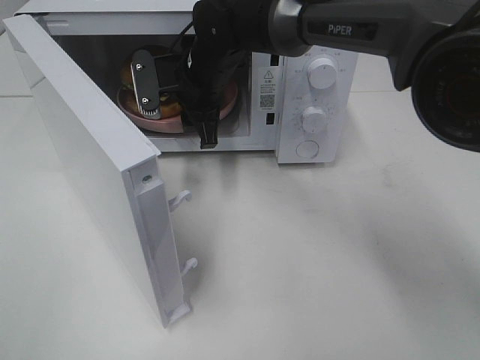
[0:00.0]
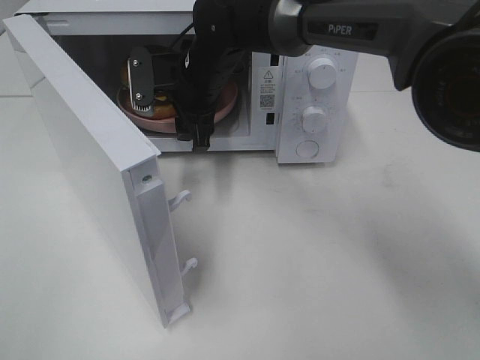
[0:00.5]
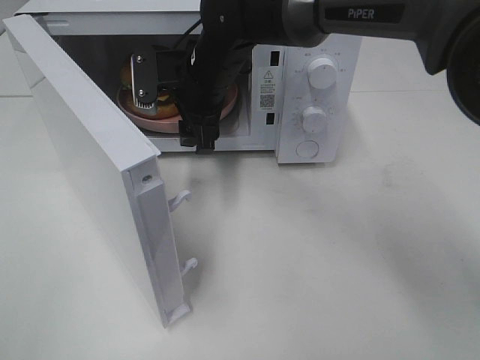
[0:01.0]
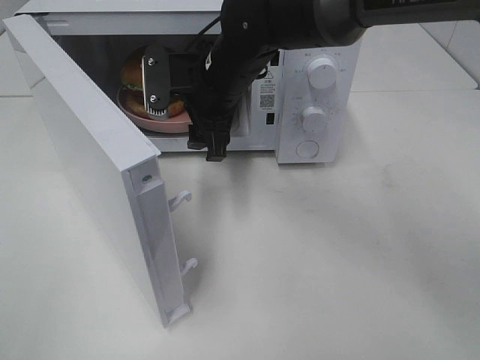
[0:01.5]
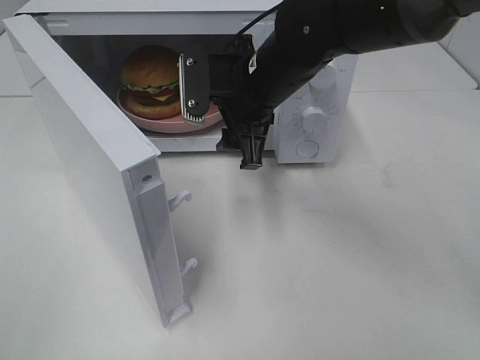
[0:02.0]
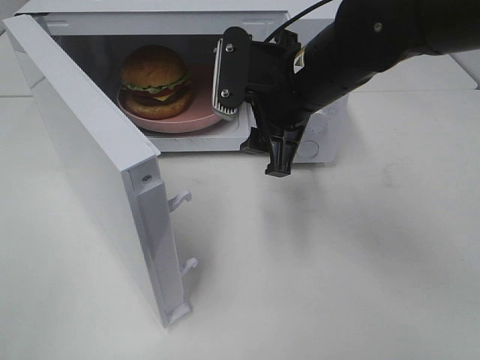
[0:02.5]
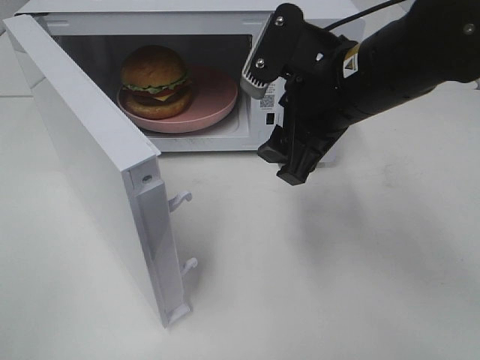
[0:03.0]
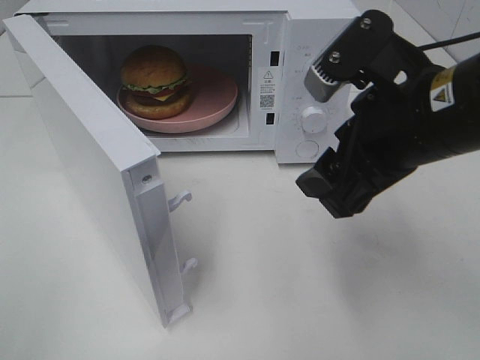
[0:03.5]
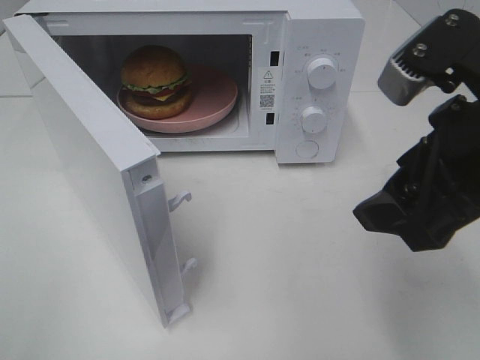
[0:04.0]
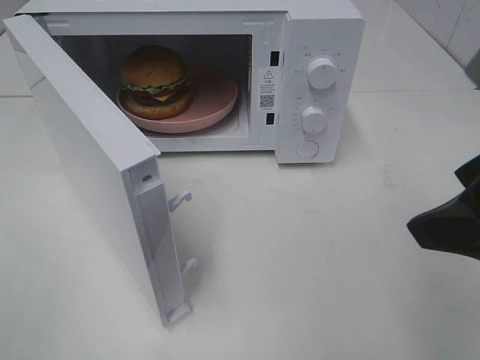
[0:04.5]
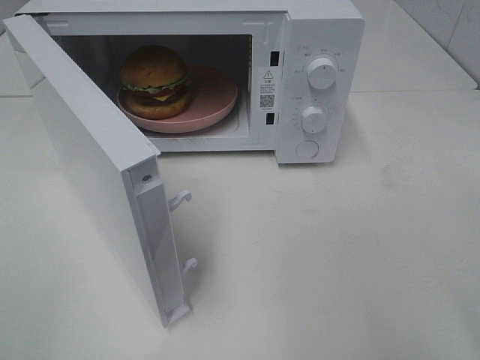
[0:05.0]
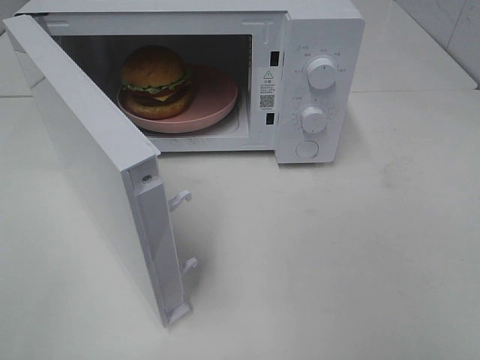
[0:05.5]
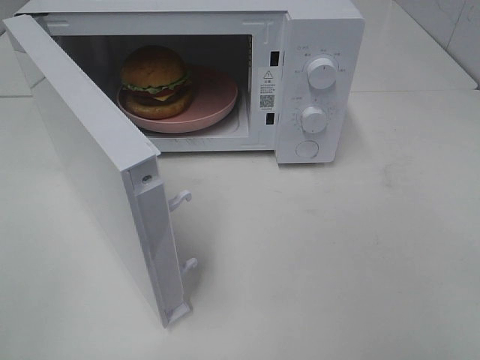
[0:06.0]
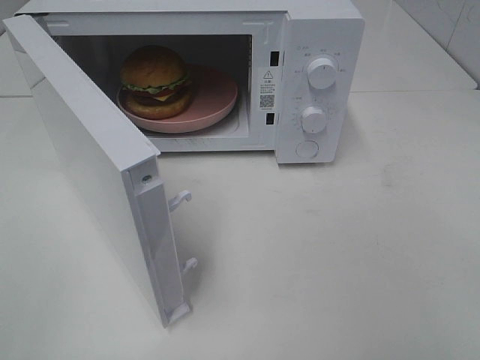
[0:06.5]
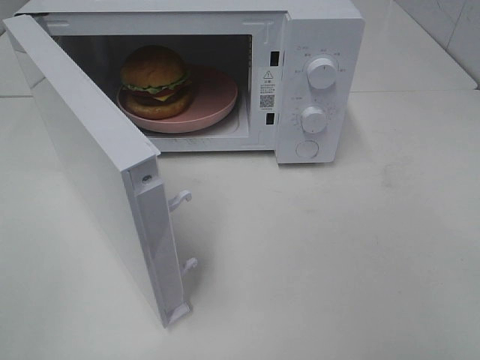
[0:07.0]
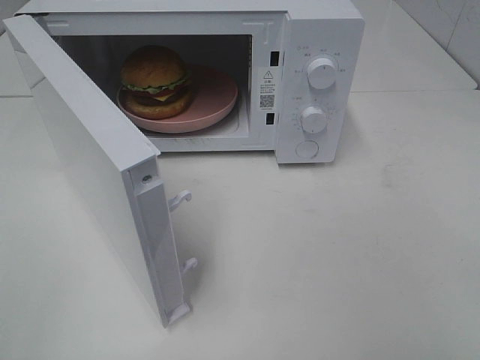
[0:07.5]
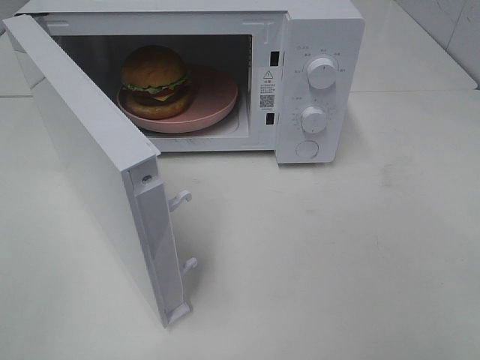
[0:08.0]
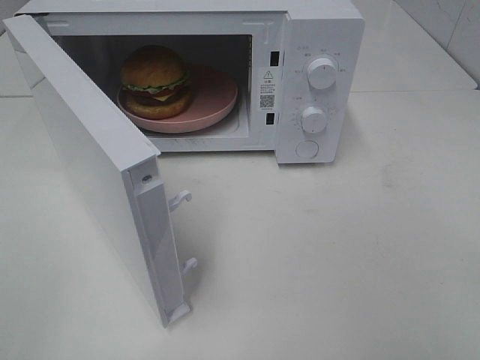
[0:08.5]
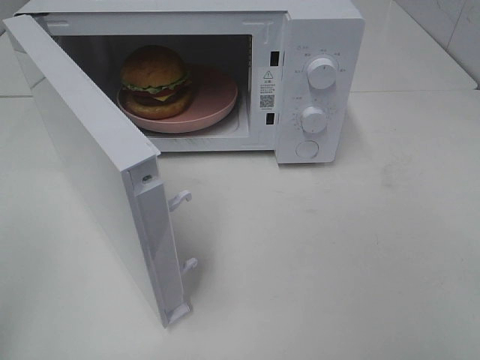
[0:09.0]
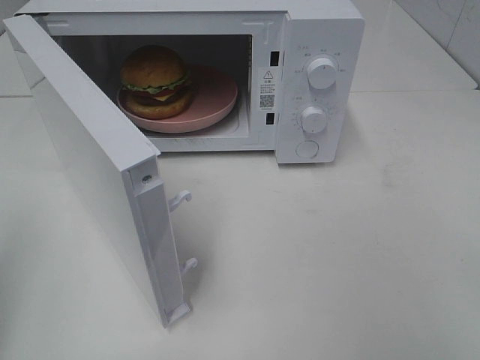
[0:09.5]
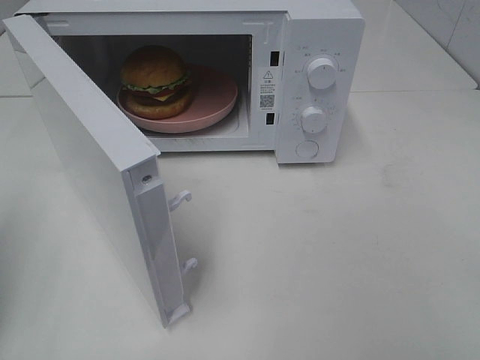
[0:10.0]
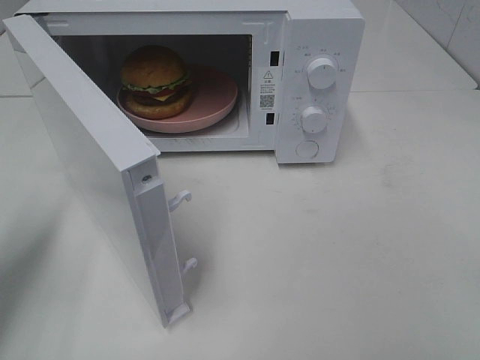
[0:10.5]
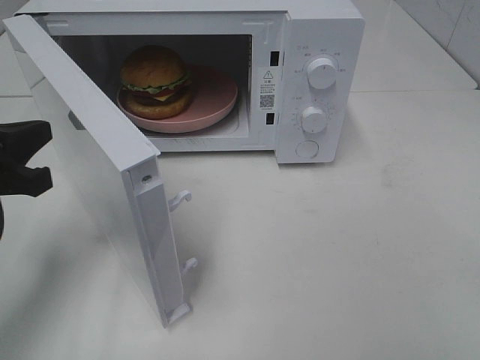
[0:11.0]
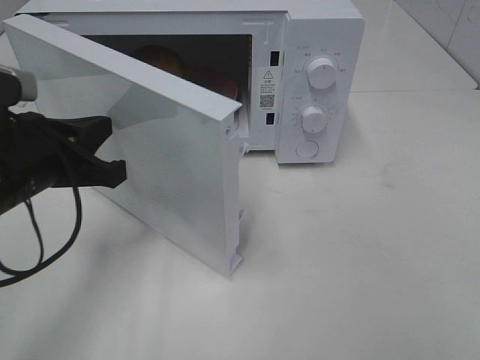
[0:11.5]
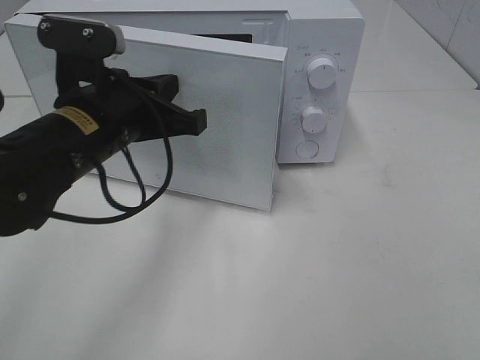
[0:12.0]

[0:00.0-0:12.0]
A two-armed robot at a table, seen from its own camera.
Task of the whole recording: Heat the burger.
0:00.0 to 0:02.0: The right gripper moves backward and to the right, approximately 10 cm.
0:02.0 to 0:04.0: The right gripper shifts some 25 cm backward and to the right.
0:04.0 to 0:06.0: The right gripper is displaced backward and to the right by approximately 20 cm.
0:06.0 to 0:08.0: The two grippers keep their place.
0:10.0 to 0:12.0: The left gripper shifts about 25 cm to the right and forward.

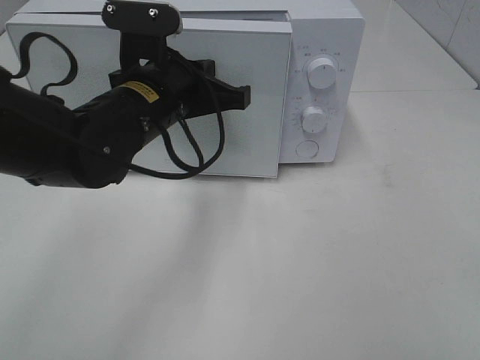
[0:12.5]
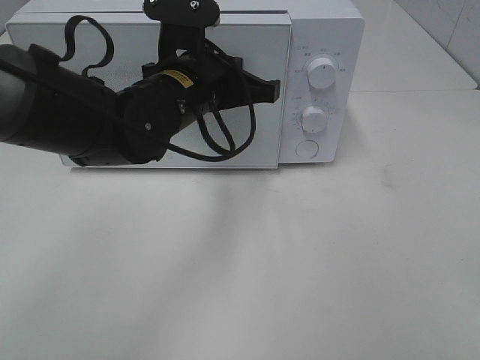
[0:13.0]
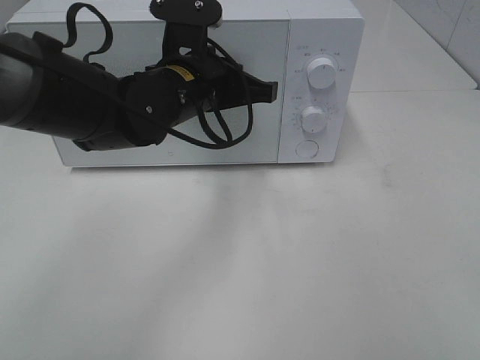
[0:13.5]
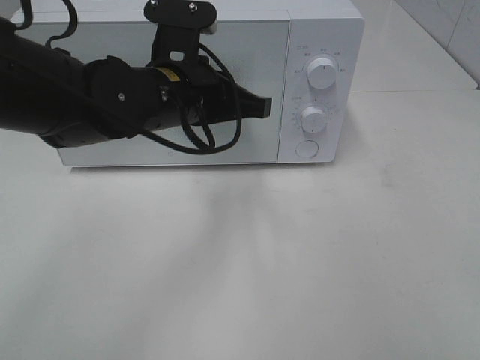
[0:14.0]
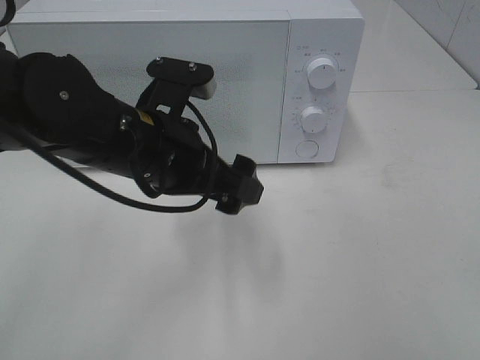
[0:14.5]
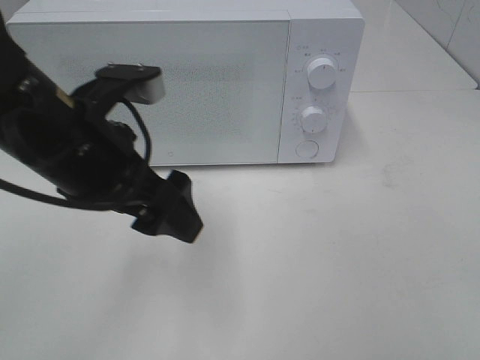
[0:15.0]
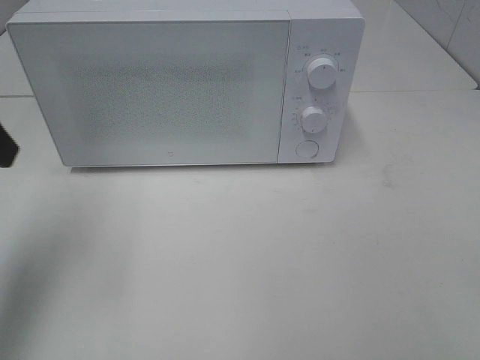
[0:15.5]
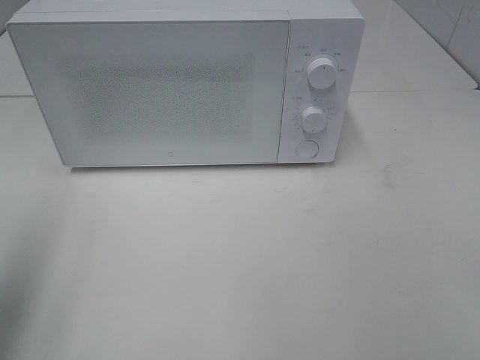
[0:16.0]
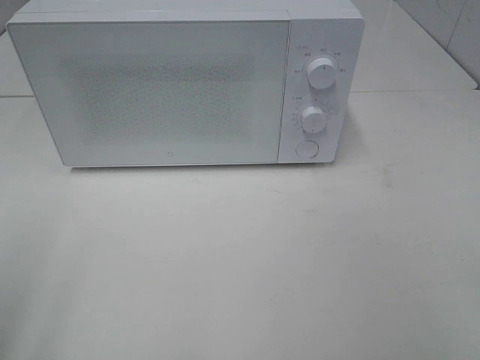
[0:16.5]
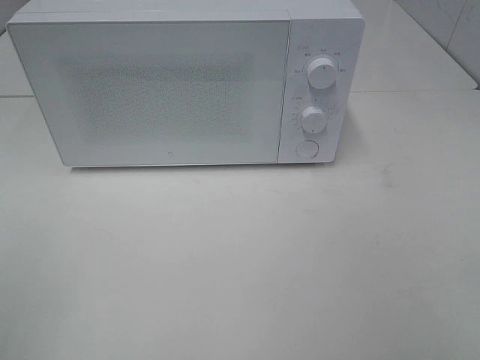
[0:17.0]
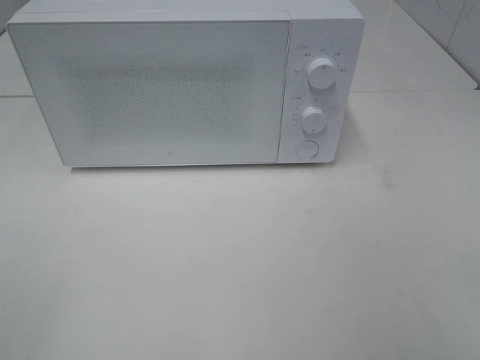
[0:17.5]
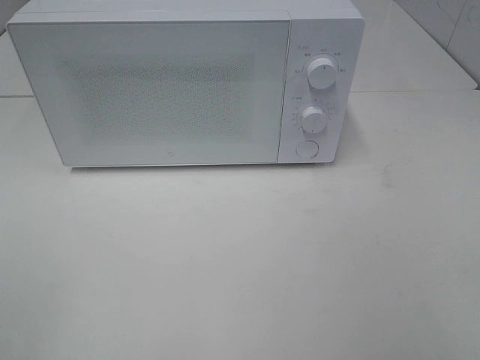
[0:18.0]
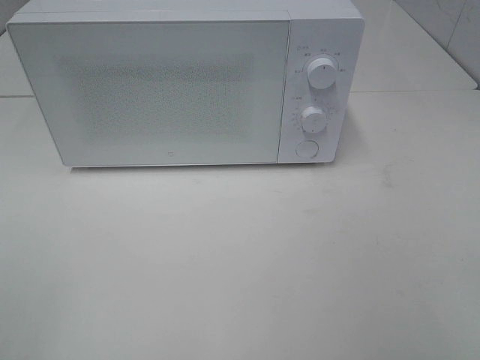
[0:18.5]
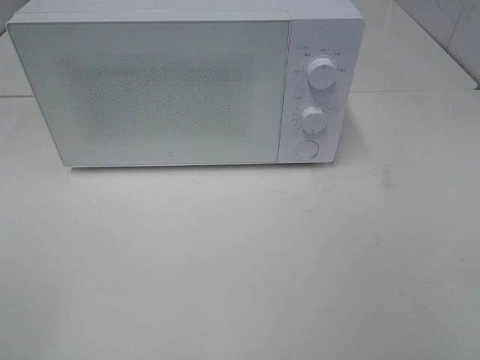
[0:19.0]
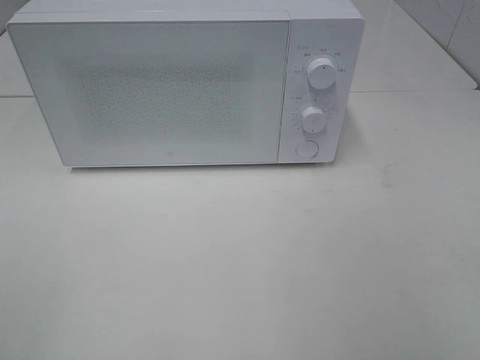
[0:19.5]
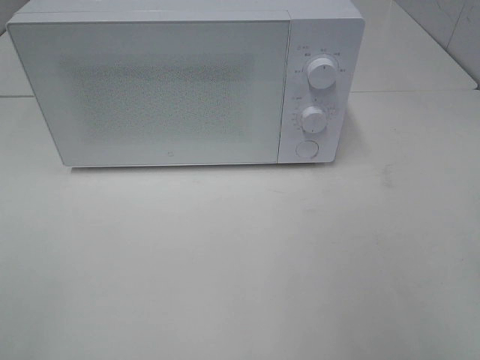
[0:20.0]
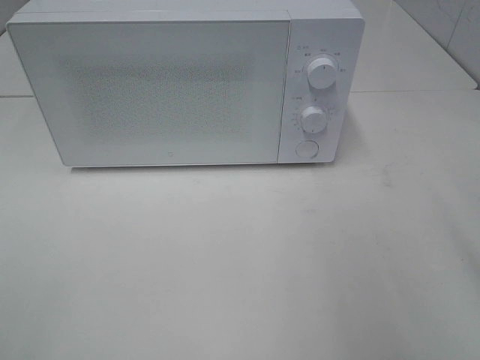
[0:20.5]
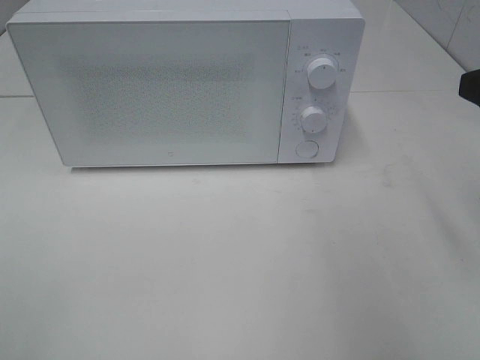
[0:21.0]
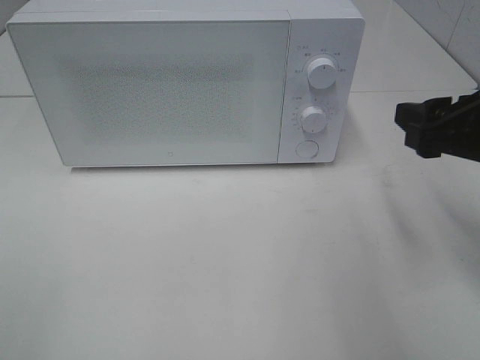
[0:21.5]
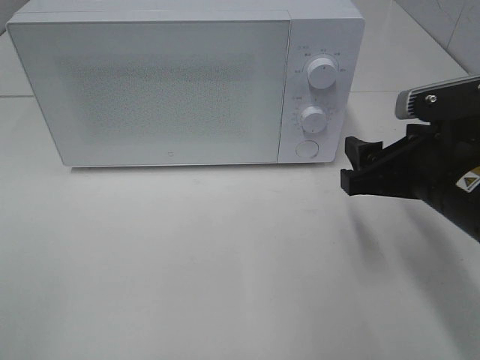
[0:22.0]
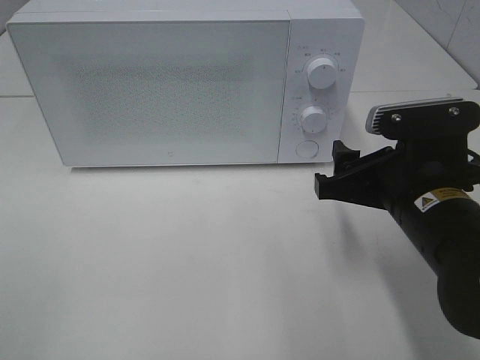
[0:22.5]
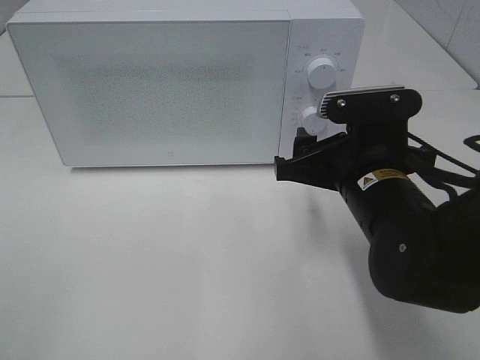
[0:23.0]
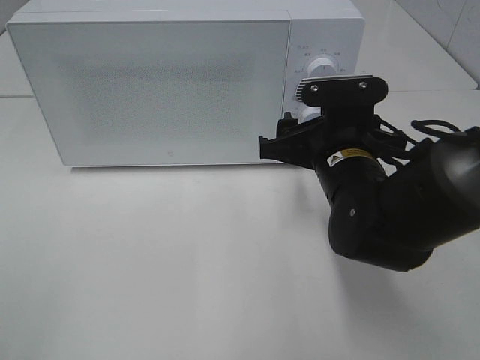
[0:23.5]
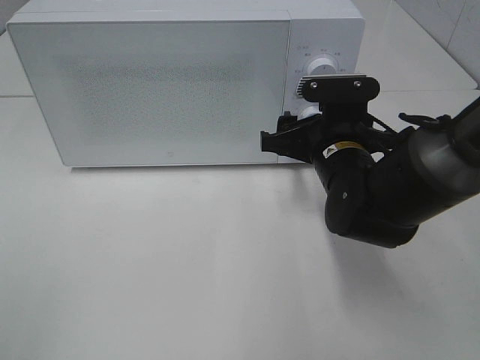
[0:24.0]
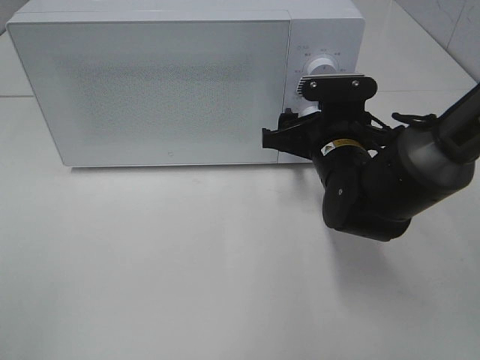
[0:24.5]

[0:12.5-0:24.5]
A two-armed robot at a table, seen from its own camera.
Task of the whole recording: Heat the burger.
0:12.5 to 0:14.5: The left gripper shifts some 5 cm backward, and opens.
0:14.5 to 0:16.5: The left gripper heads to the left and backward, covering approximately 30 cm.
0:20.5 to 0:22.5: The right gripper goes about 20 cm downward, to the left and forward.
0:22.5 to 0:24.5: The right gripper heads forward, covering some 10 cm.

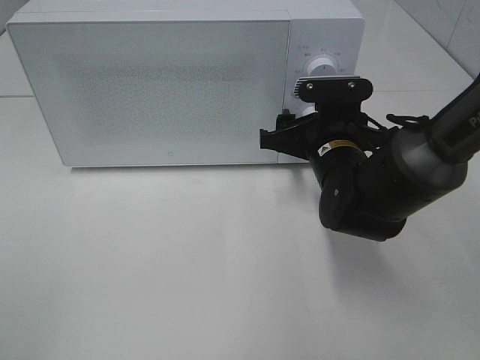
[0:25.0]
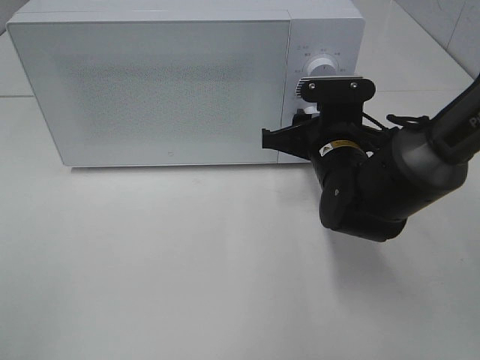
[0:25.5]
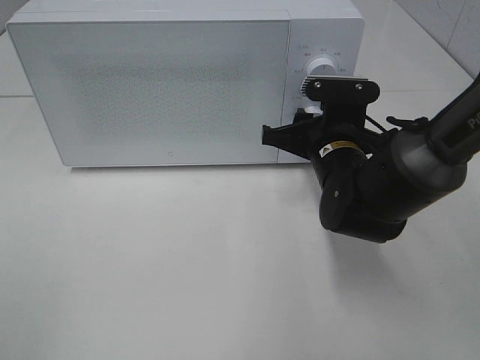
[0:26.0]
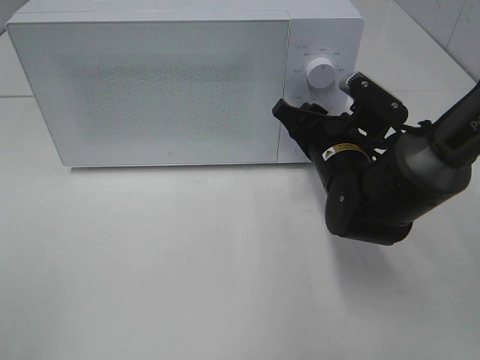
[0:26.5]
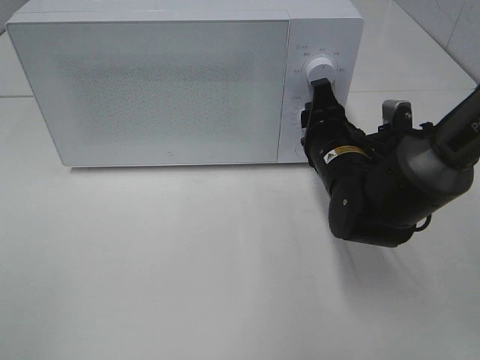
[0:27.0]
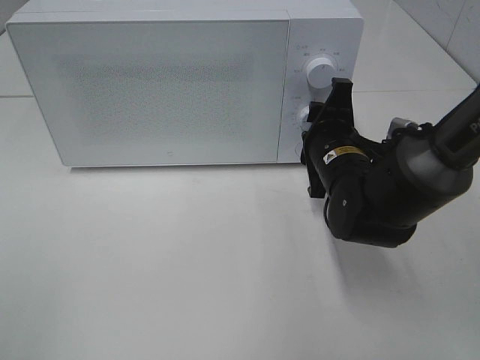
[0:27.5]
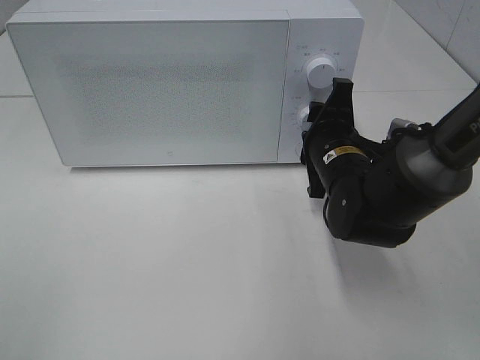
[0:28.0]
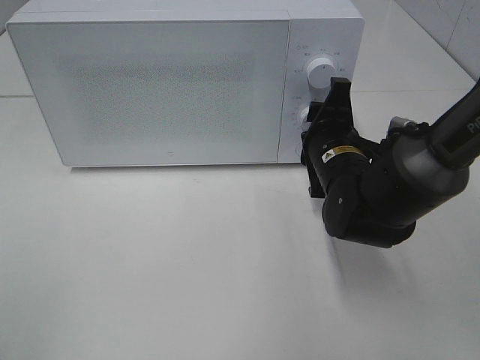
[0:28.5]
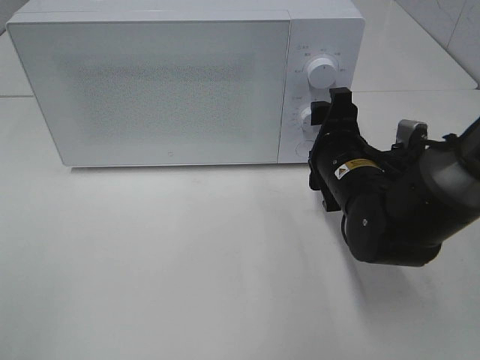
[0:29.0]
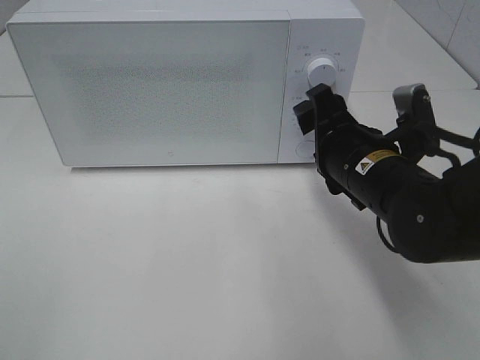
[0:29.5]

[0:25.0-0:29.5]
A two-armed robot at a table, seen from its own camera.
Task of the whole recording: Heat the burger.
Step, 0:25.0 to 0:28.5: Right hand: twist timer button.
0:27.0 to 0:29.5: The right gripper goes approximately 5 cm backward.
